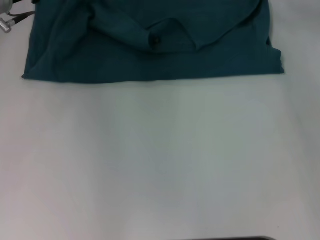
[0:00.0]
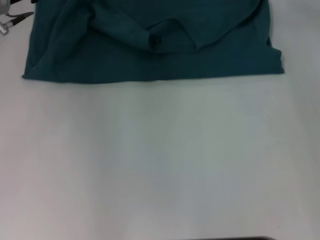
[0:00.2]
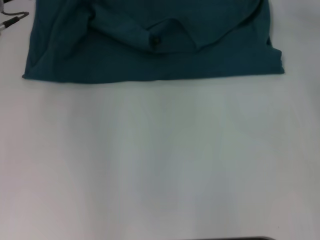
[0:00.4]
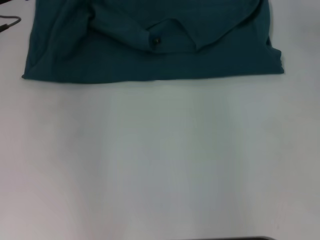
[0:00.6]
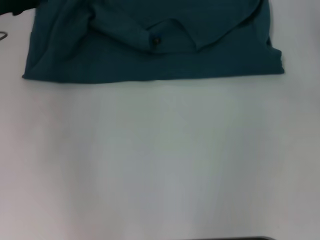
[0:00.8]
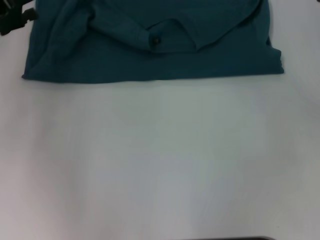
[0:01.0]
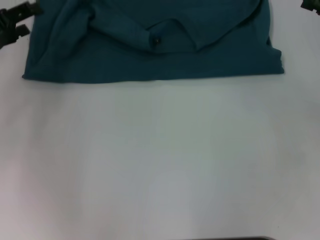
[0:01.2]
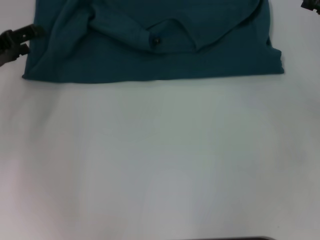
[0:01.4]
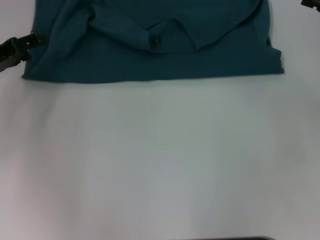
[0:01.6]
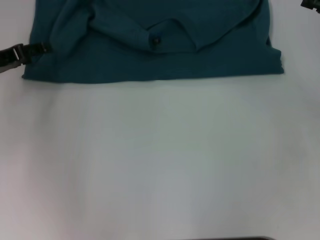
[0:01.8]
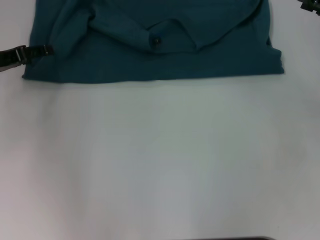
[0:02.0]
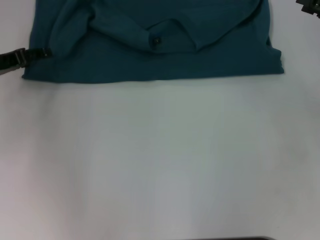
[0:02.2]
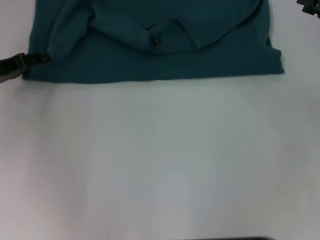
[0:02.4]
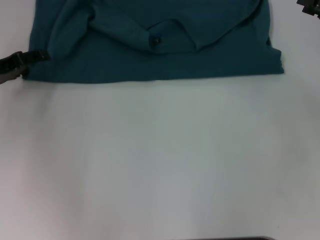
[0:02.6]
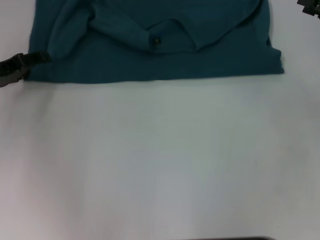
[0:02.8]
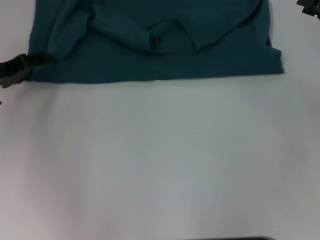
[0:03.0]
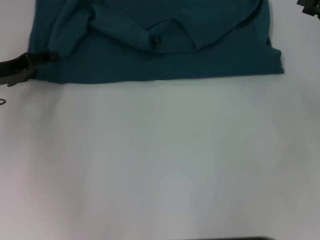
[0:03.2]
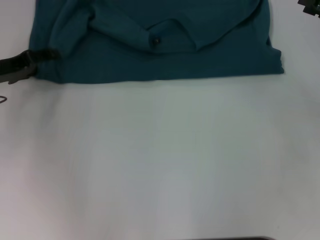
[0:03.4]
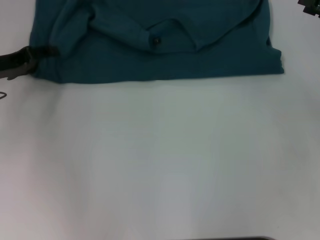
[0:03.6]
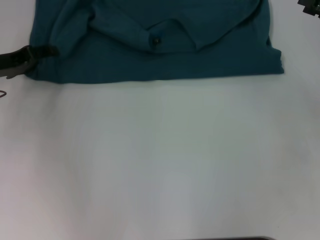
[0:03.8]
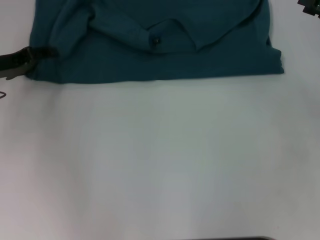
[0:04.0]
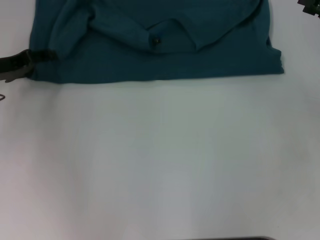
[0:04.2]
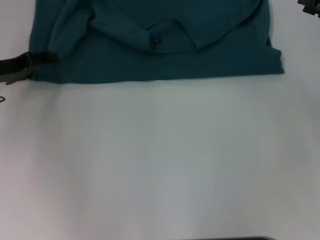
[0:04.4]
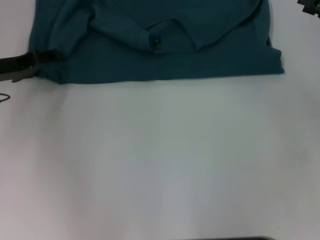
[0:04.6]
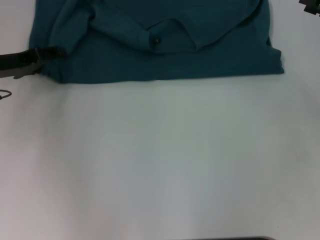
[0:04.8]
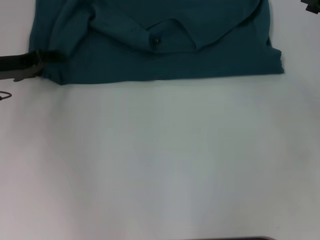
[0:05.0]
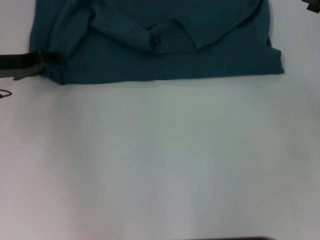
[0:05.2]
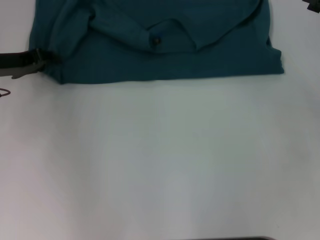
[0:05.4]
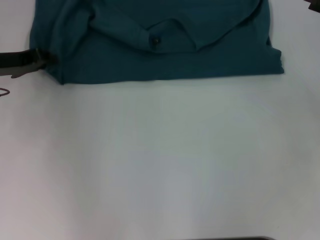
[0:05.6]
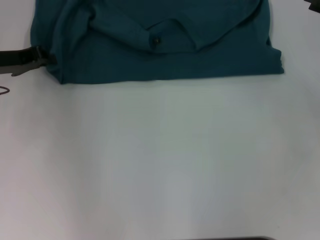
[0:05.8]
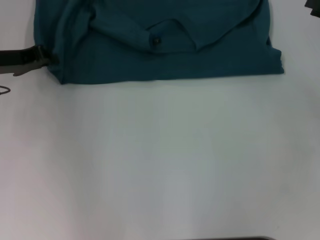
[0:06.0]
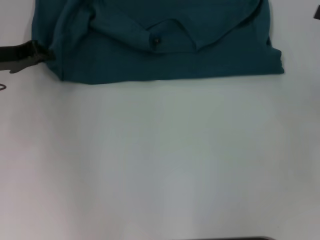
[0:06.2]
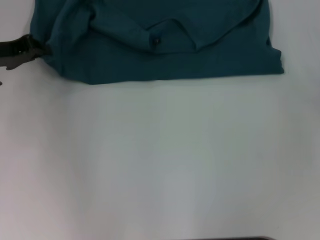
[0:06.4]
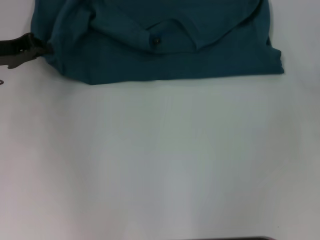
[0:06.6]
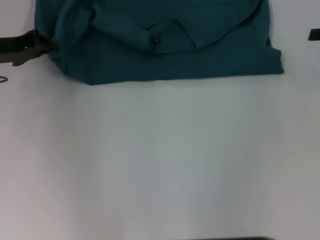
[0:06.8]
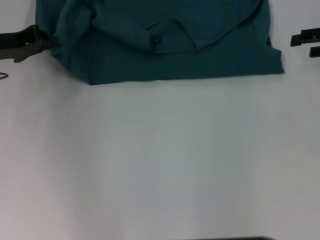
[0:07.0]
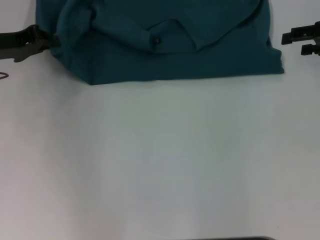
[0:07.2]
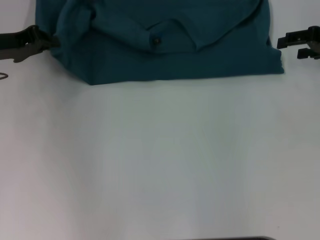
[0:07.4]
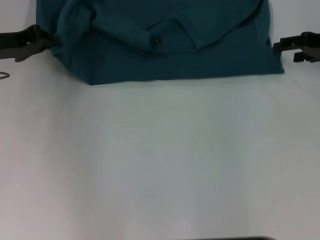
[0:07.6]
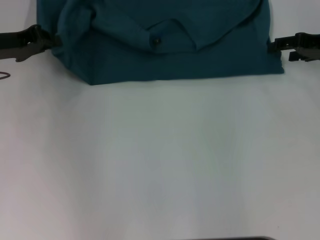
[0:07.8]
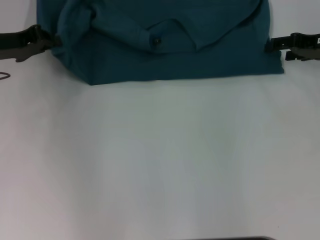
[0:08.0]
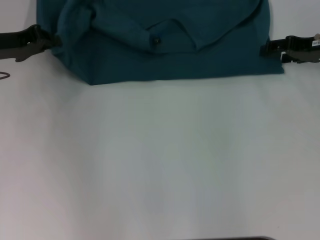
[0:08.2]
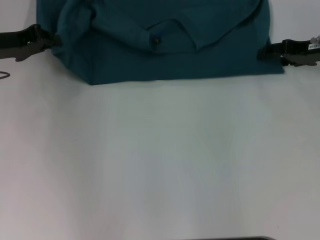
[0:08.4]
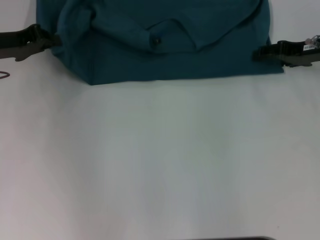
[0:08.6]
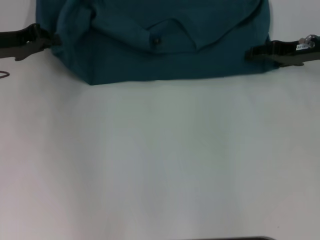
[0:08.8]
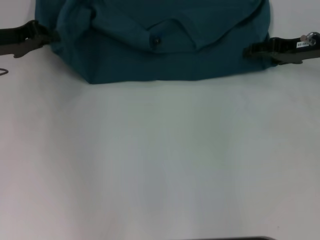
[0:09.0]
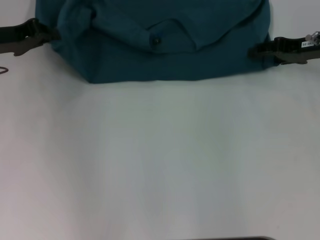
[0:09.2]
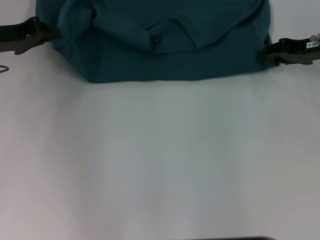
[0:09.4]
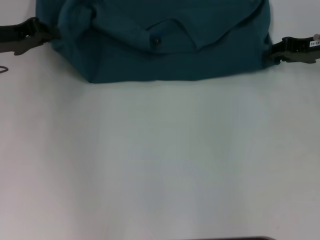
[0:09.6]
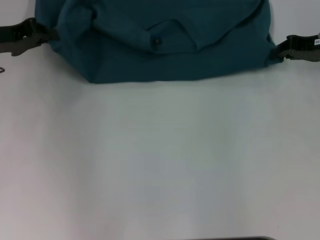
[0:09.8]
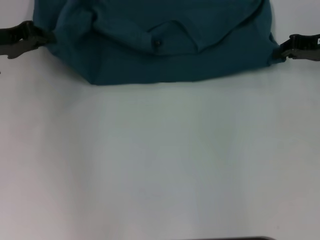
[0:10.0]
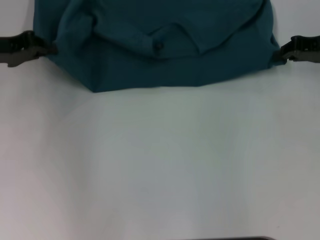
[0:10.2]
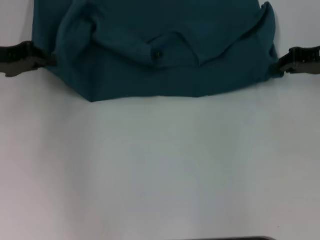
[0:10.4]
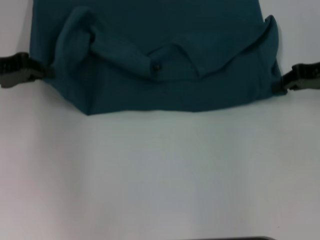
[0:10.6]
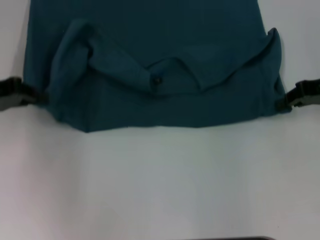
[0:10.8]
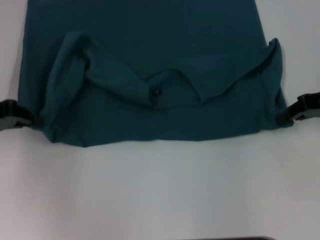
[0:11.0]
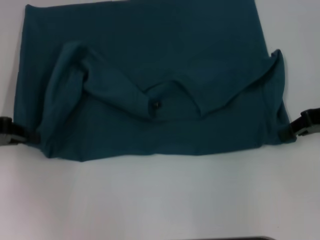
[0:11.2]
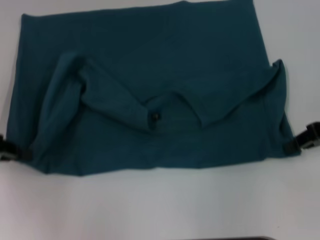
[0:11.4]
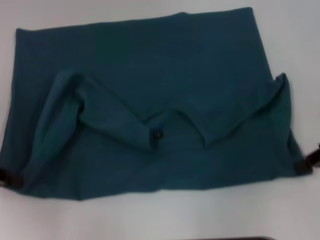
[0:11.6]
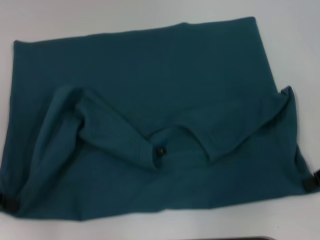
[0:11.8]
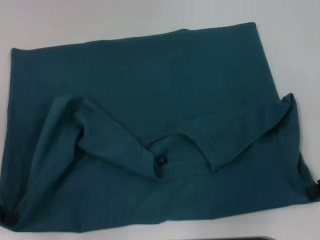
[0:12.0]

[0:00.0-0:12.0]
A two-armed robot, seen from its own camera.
Step, 0:00.6 to 0:12.0: Pull the clothes with your left hand.
Step, 0:00.6 to 0:12.0: Pull the clothes with your right hand.
0:00.0 to 0:01.6: The left gripper moves backward, to the left and downward, roughly 10 cm.
0:01.6 to 0:03.0: The grippers make only small movements.
0:04.4 to 0:06.0: The left gripper closes up.
0:06.0 to 0:07.6: The right gripper moves forward, roughly 10 cm.
0:07.6 to 0:09.0: The grippers move only a little.
0:09.0 to 0:10.4: The right gripper closes up.
0:10.4 to 0:12.0: Both grippers move backward, about 15 cm.

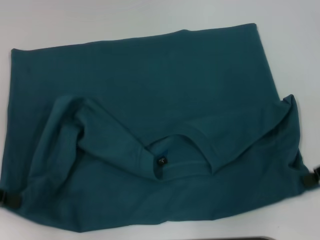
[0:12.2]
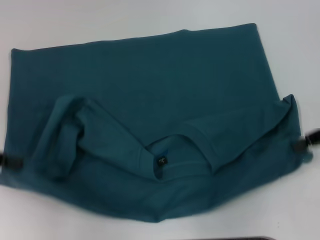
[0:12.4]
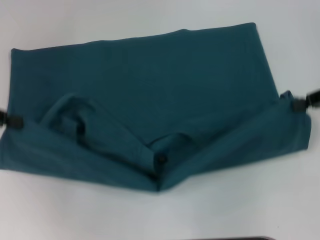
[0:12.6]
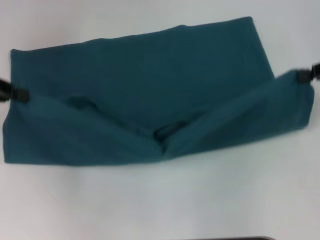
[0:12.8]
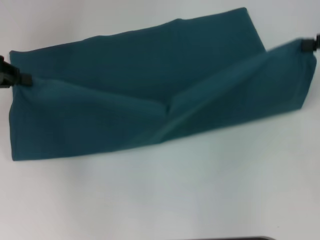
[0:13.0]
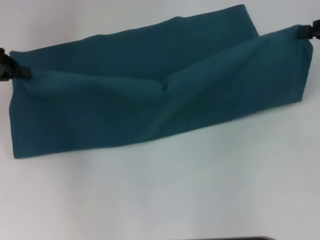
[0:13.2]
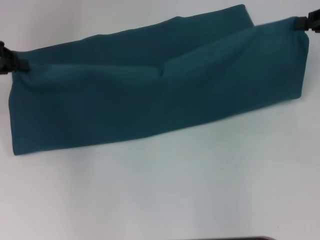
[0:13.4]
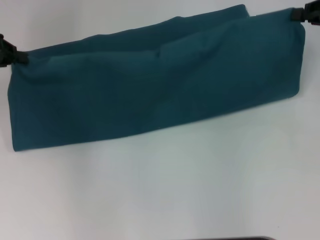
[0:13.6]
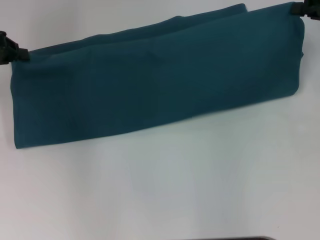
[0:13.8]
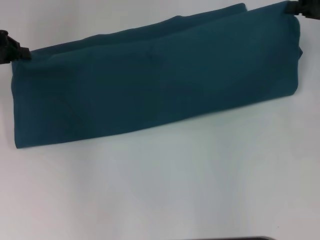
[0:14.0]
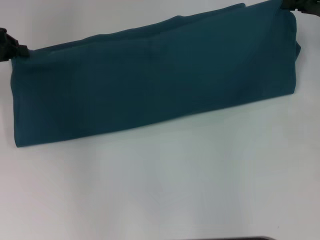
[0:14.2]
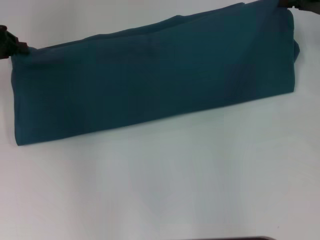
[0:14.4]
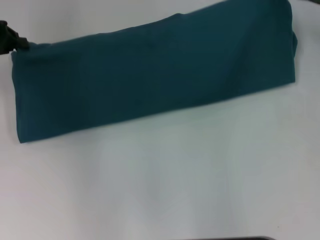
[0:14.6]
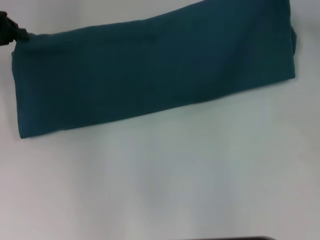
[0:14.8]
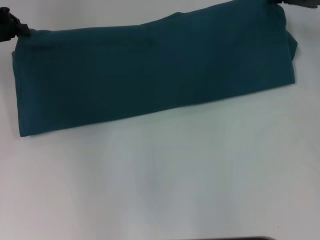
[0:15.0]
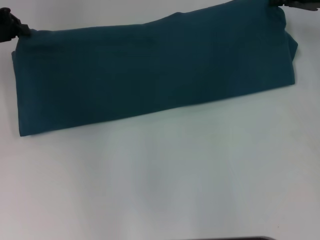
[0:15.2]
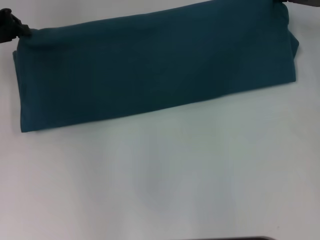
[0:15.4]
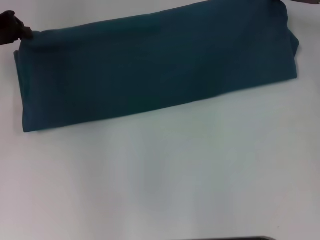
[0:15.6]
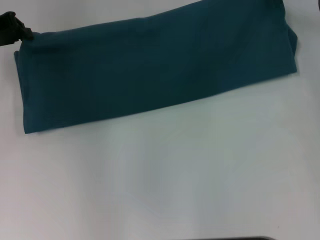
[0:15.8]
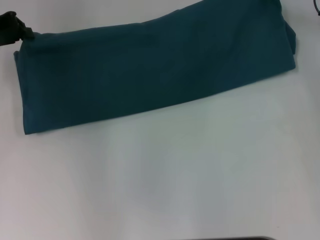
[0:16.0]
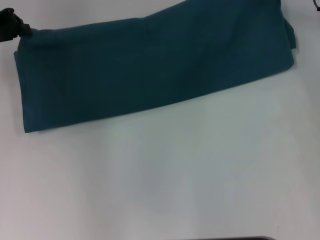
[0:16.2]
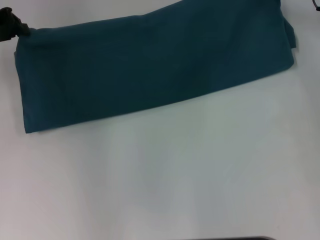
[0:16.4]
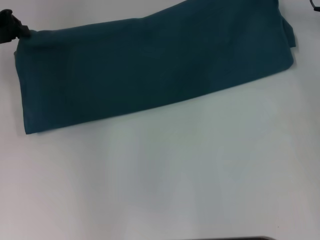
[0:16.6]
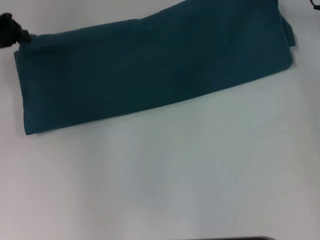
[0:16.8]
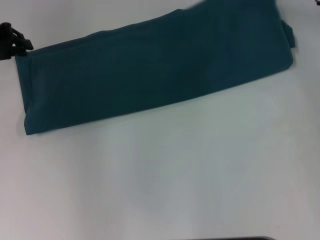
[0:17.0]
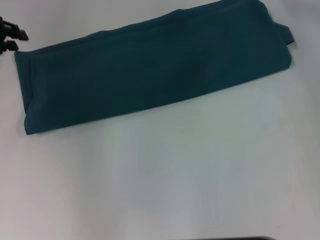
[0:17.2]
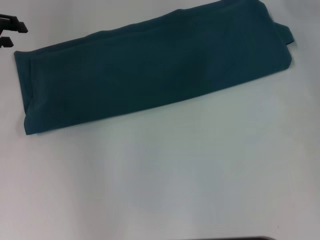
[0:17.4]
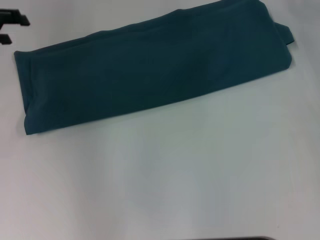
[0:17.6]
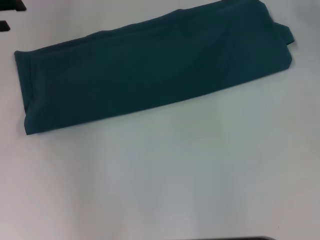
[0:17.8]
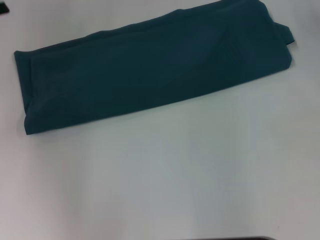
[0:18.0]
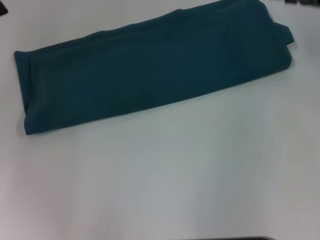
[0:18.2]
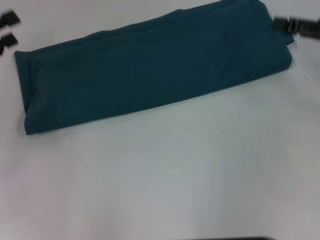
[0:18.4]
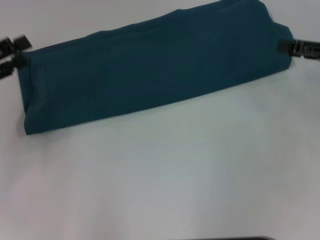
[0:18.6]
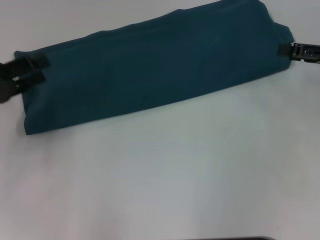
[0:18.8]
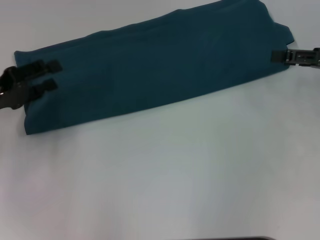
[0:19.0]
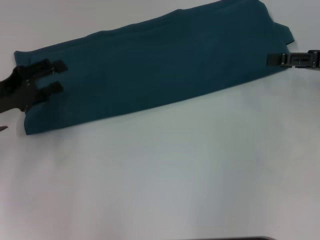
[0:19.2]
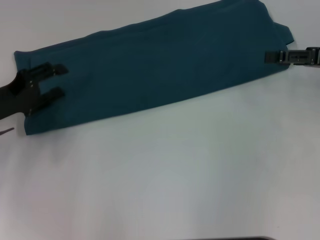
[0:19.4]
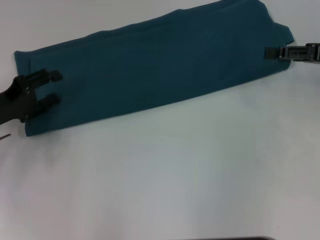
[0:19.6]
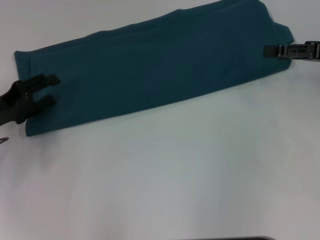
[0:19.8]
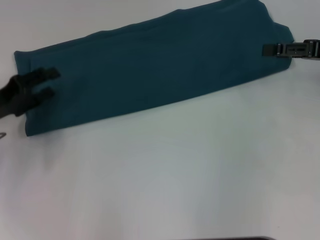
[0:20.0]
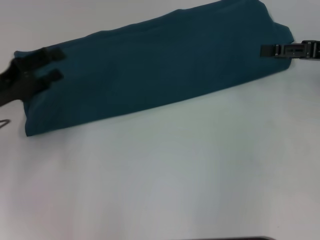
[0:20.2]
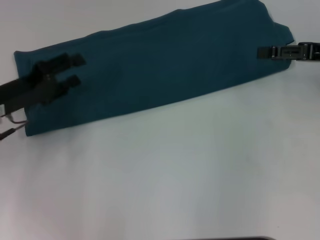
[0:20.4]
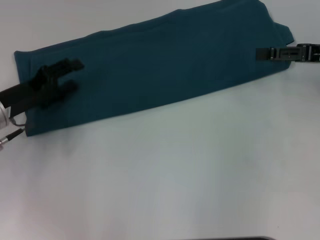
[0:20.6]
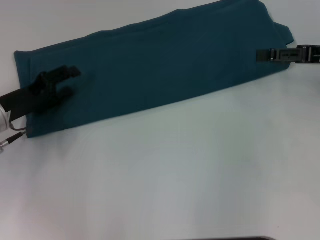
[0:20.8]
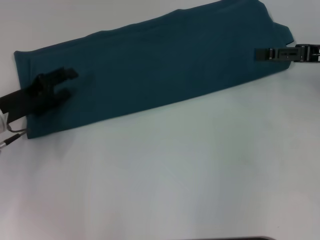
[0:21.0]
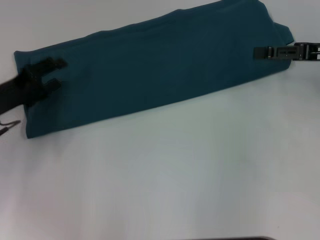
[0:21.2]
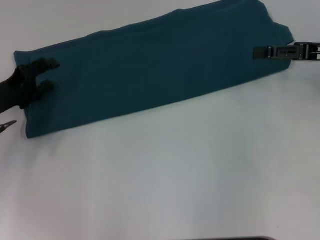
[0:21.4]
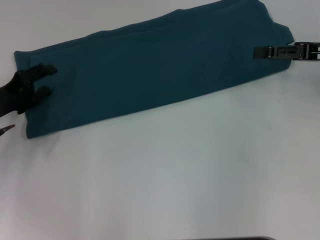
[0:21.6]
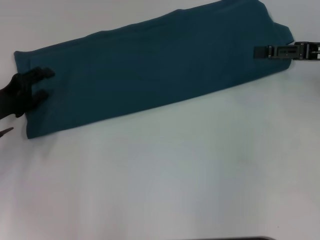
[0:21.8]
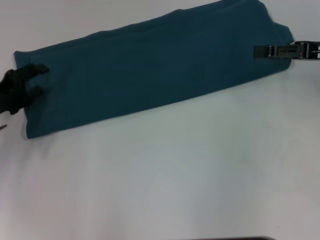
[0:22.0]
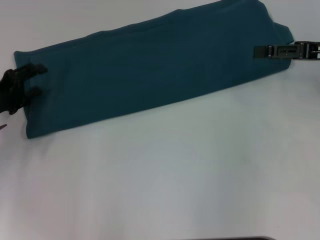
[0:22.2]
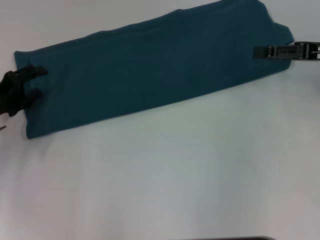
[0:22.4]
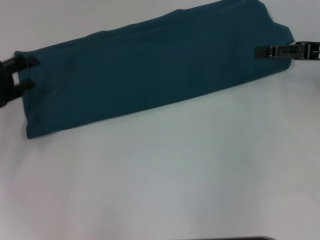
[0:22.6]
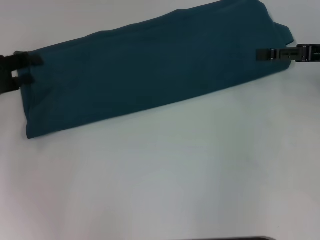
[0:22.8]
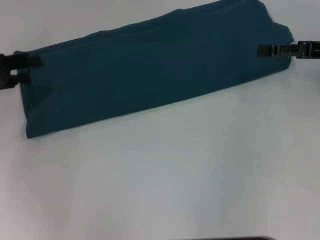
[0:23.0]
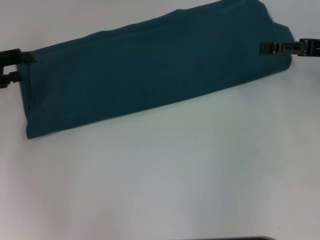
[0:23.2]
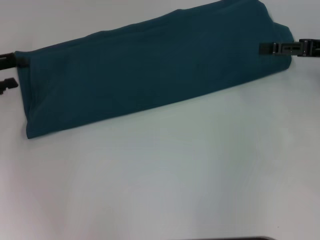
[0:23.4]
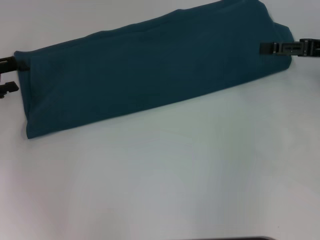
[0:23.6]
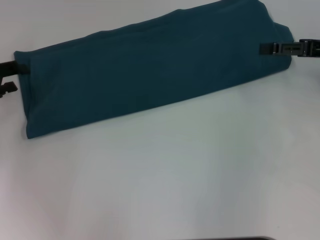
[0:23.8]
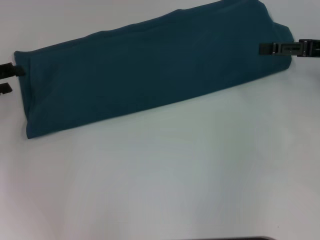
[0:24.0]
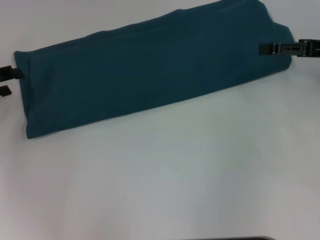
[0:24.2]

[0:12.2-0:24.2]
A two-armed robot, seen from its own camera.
Step, 0:12.2 to 0:17.2: Fold the clothes to the left.
Step, 0:12.2 to 0:17.2: Fold the clothes to the right.
0:12.2 to 0:13.8: The grippers both shift forward by about 15 cm.
0:13.8 to 0:15.2: The right gripper is displaced forward and to the left by roughly 10 cm.
0:15.2 to 0:16.6: The grippers stay close to where they were, moving slightly.
0:16.6 to 0:18.2: The right gripper is displaced backward and to the right by some 15 cm, and opens its fingers, while the left gripper heads backward, covering some 10 cm, and opens its fingers.
0:18.2 to 0:19.8: The left gripper goes roughly 10 cm downward.
0:19.8 to 0:22.6: The grippers stay close to where they were, moving slightly.
